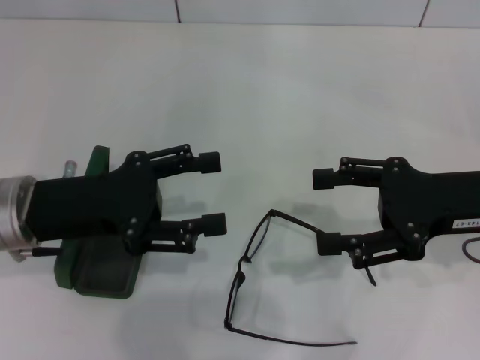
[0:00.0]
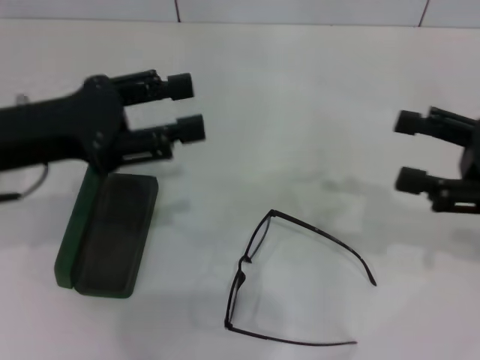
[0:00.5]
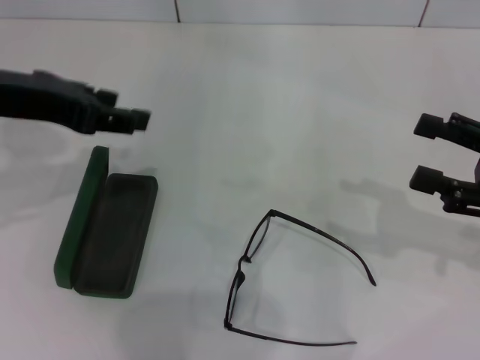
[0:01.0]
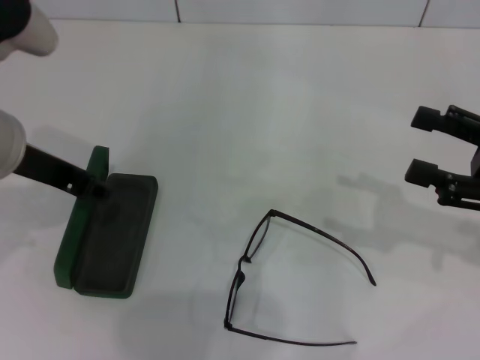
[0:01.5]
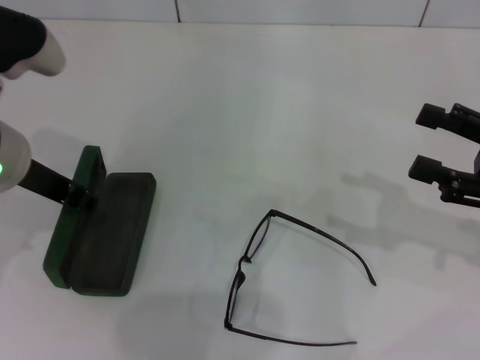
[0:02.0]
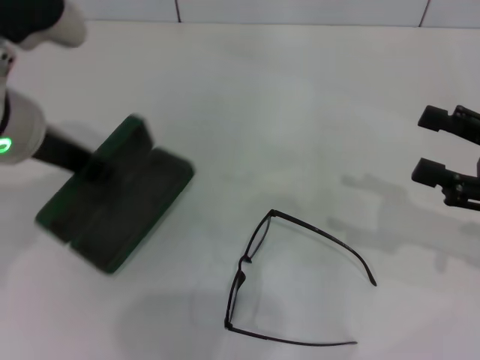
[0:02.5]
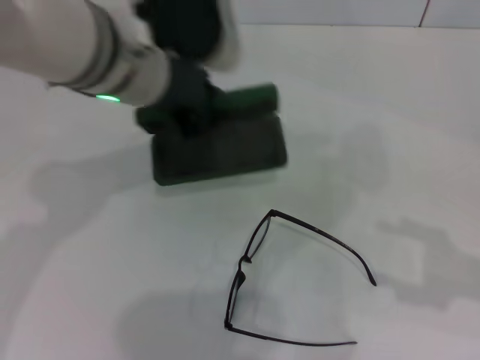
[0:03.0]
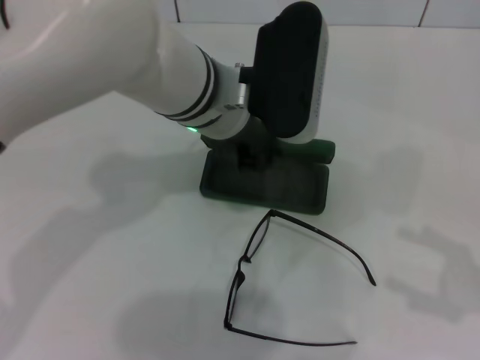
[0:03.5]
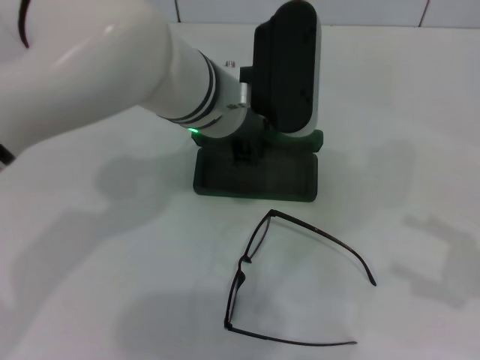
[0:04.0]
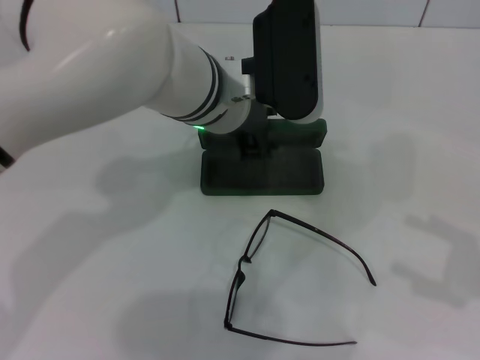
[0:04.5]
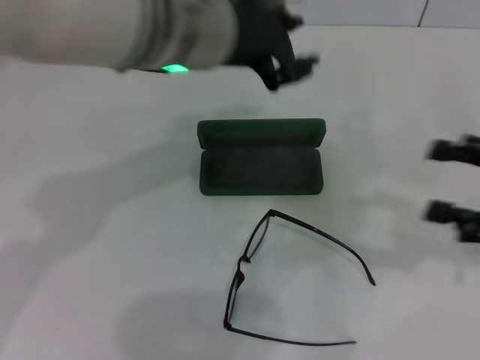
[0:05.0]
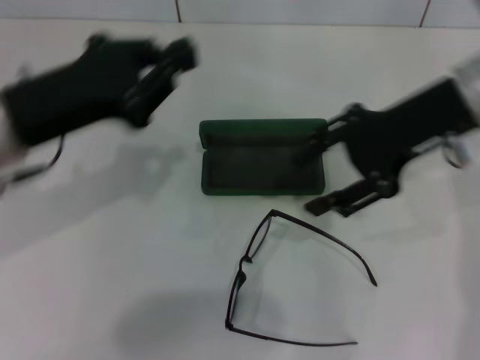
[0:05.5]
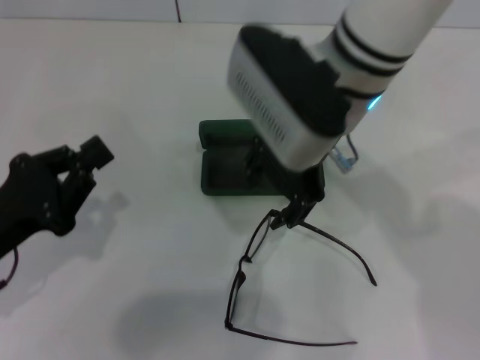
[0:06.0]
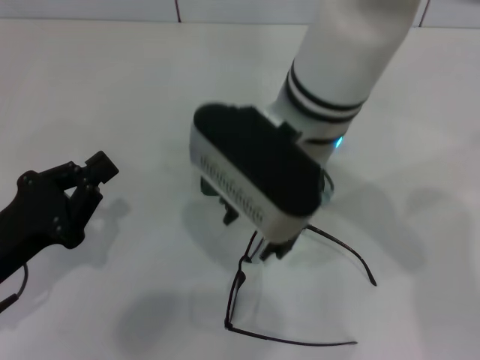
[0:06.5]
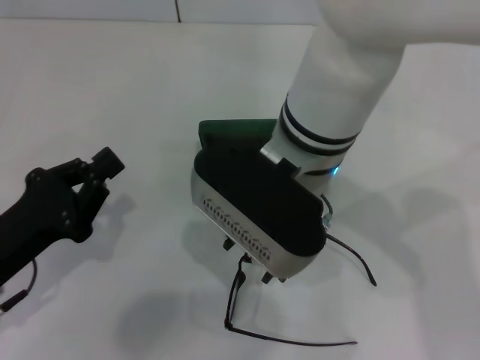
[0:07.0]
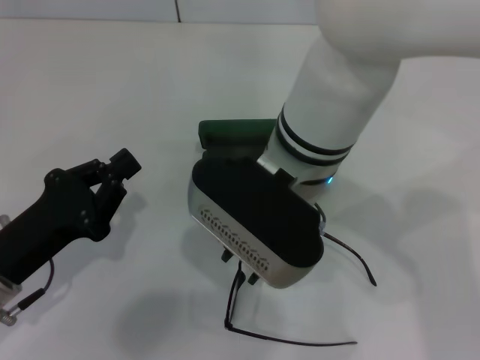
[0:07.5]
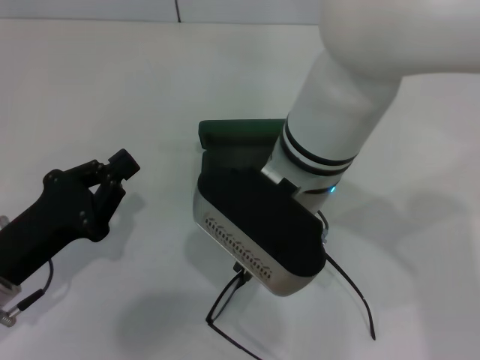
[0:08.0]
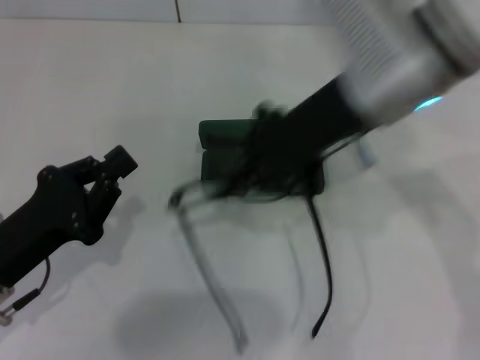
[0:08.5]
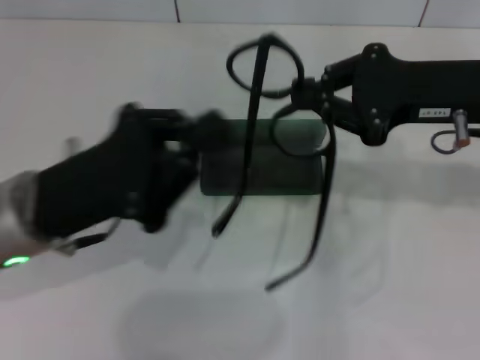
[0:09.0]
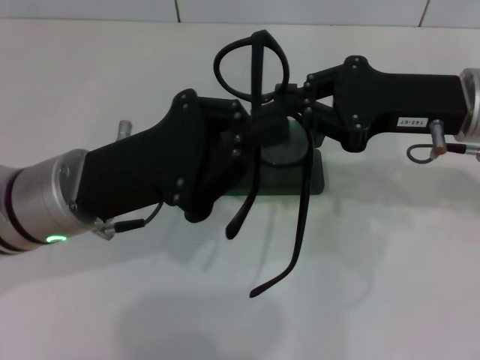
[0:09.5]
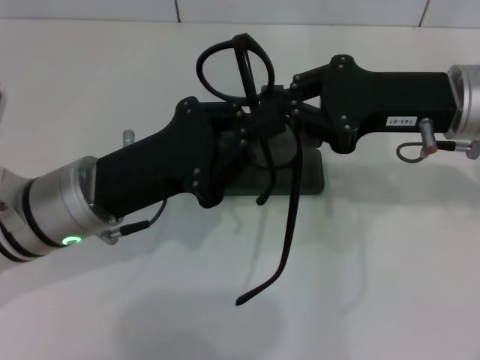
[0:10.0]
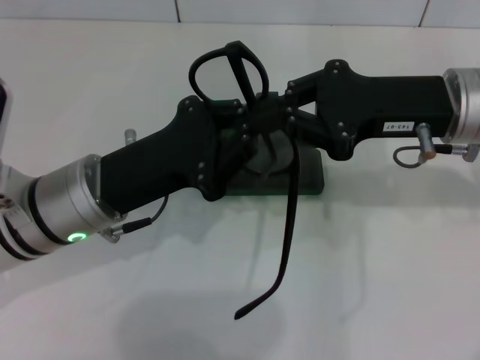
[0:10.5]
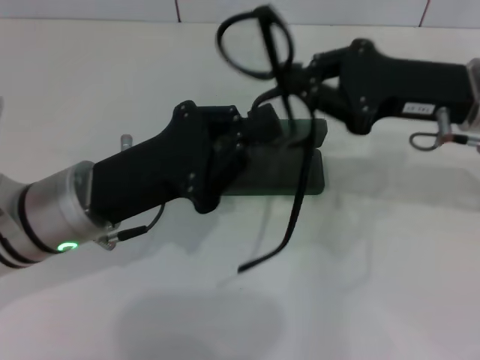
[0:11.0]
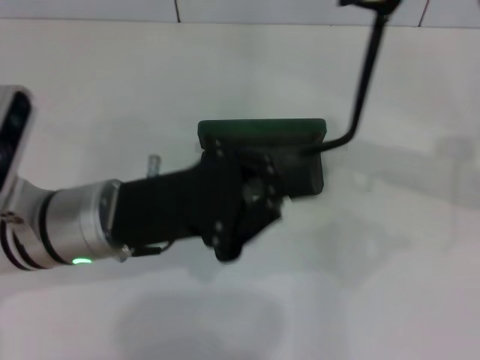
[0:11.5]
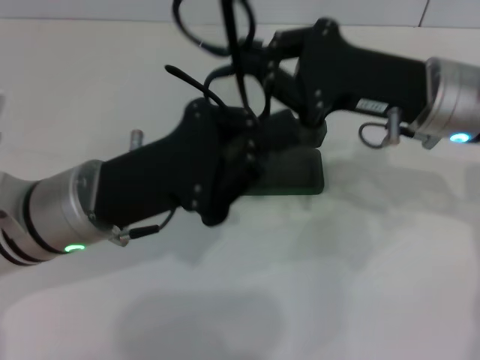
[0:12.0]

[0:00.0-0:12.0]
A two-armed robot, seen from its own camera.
Step, 0:00.0 to 0:02.0: Grab the glasses case with your left hand.
Step, 0:02.5 to 0:04.0: Place the glasses case in the center of the table with your left hand.
Step, 0:04.5 to 0:07.5: Grab the eyeglass frame with your right hand.
0:00.0 to 0:02.0: The right gripper travels to the right by approximately 5 cm; the left gripper goes approximately 10 cm upward, and closes its fingers.
0:02.0 to 0:04.0: The right gripper travels backward and to the right by some 10 cm. Meanwhile the left gripper is displaced to the right by about 15 cm.
0:04.0 to 0:06.0: The right gripper travels to the left and forward by approximately 35 cm. Meanwhile the left gripper heads to the left and backward, covering approximately 30 cm.
0:06.0 to 0:08.0: The right gripper shifts some 5 cm backward, and closes its fingers.
0:08.0 to 0:10.0: The right gripper moves to the right, approximately 20 cm. Meanwhile the left gripper heads to the right, forward and upward, covering some 15 cm.
0:10.0 to 0:12.0: The right gripper reaches roughly 5 cm to the right, then returns.

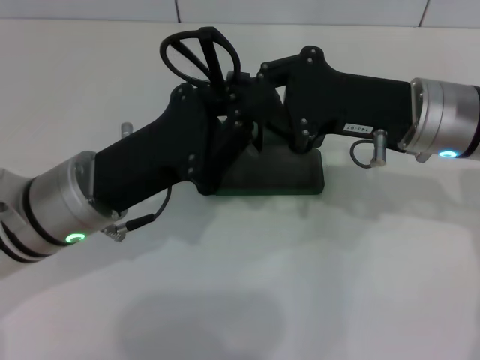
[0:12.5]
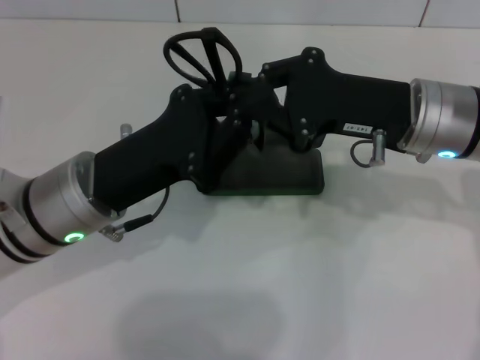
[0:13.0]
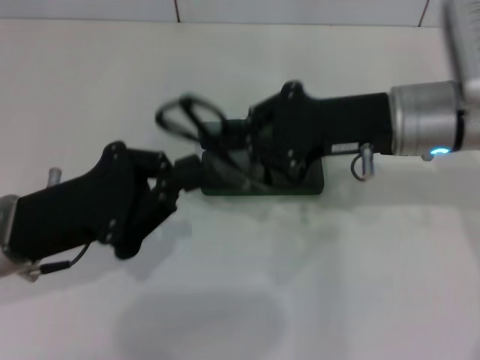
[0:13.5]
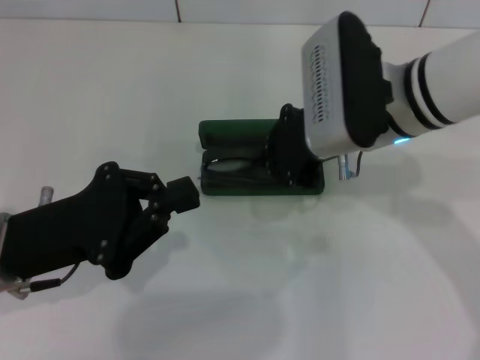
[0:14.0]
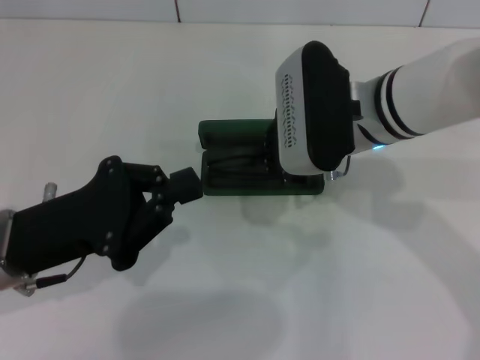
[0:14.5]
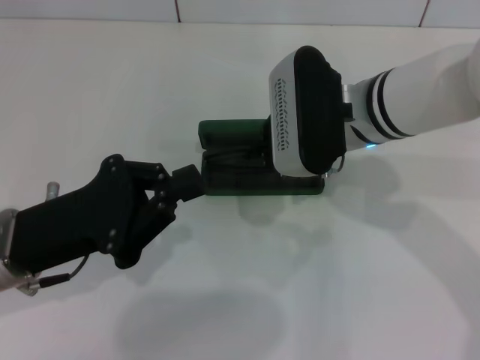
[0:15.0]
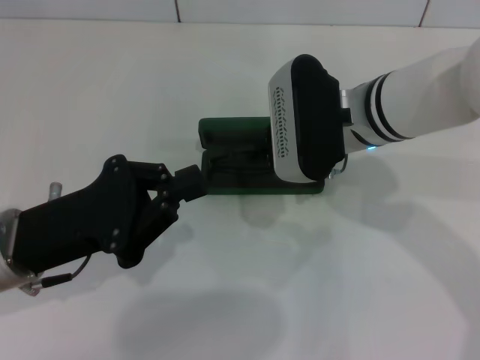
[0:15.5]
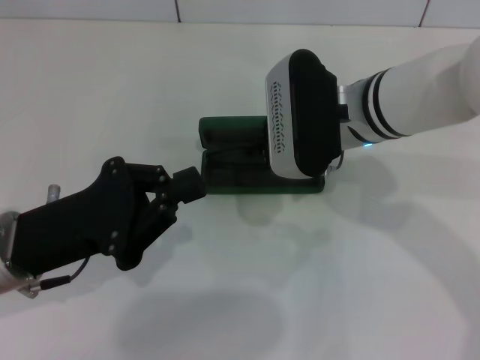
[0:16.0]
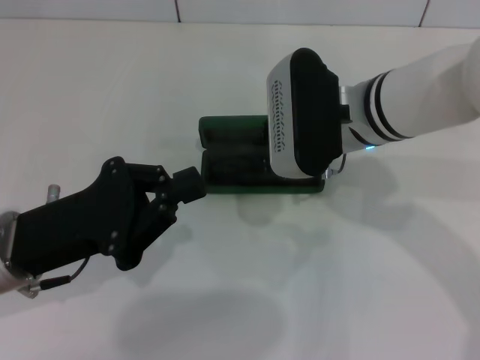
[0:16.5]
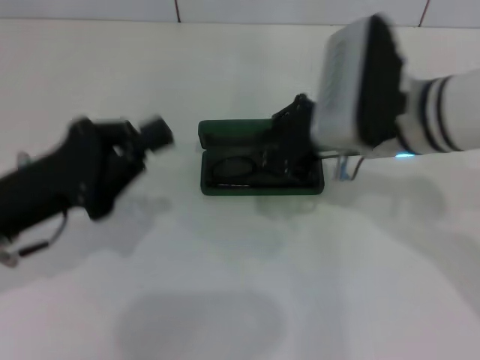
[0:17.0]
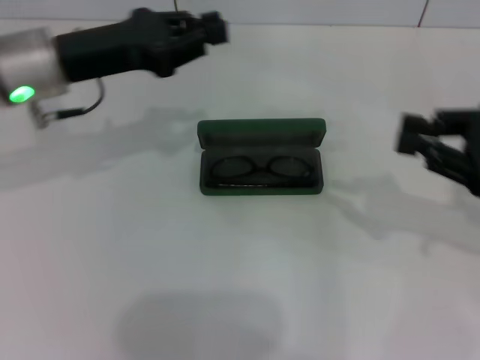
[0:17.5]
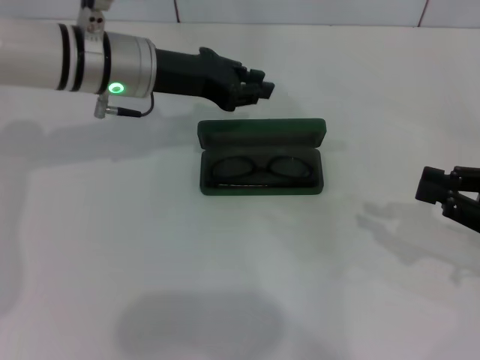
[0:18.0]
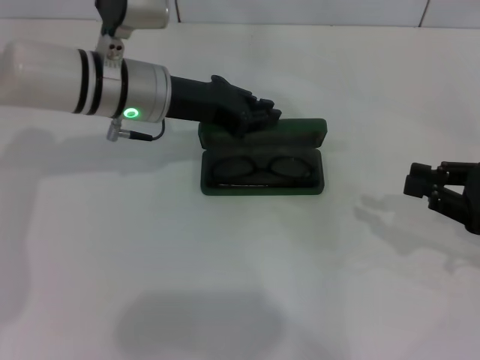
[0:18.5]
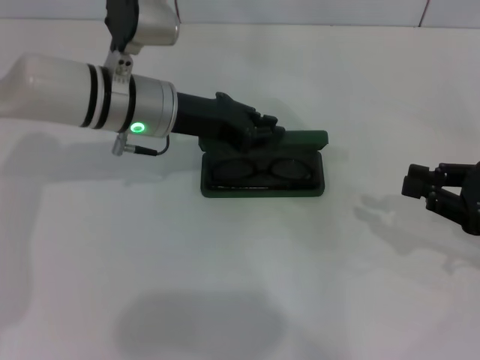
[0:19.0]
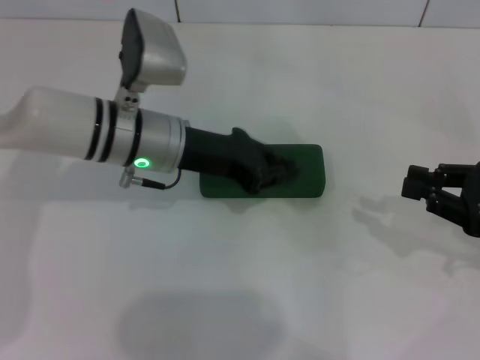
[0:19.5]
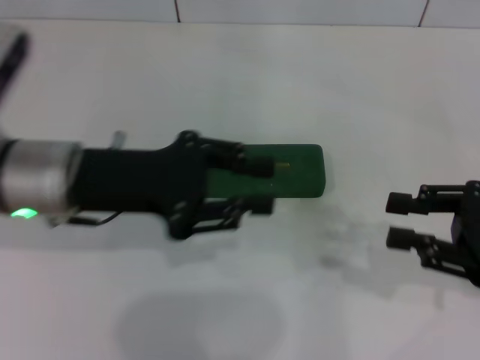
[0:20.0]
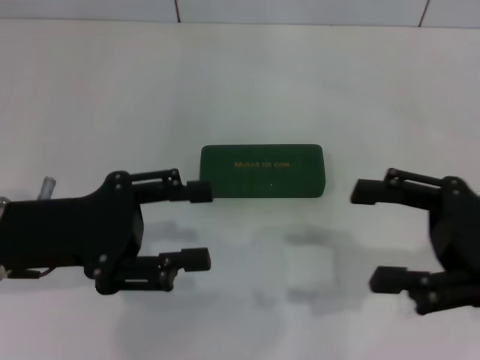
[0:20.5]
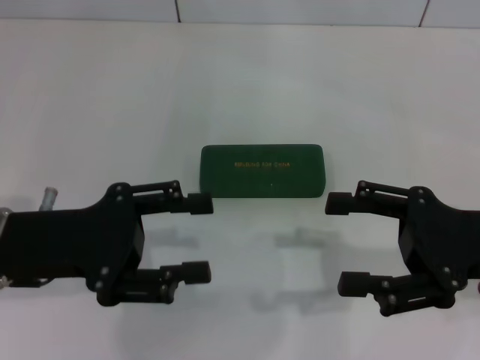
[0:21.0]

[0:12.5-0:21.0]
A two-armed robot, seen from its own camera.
Step, 0:13.5 to 0:16.5: Put the glasses into the case with your right hand.
Step, 0:17.0 to 0:19.0: Close the glasses case with your left hand.
0:12.5 to 0:14.5: The two grippers go roughly 5 cm to the left.
0:14.5 to 0:16.5: Both grippers stay about where they are.
0:16.5 to 0:19.0: The right gripper is displaced to the right by some 25 cm. The left gripper moves forward and to the right, about 20 cm.
0:19.0 to 0:21.0: The left gripper shifts approximately 20 cm backward and to the left, and opens. Meanwhile the right gripper shifts some 5 cm to the left, and opens.
